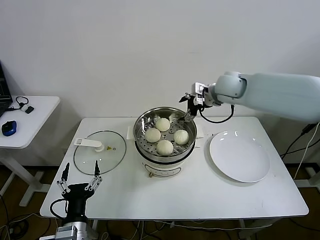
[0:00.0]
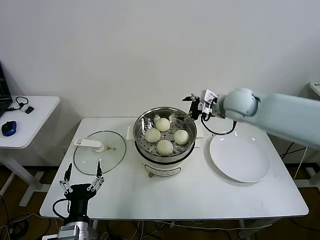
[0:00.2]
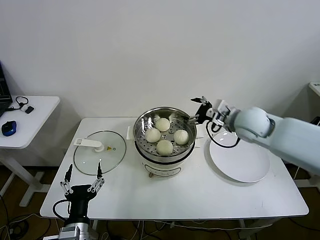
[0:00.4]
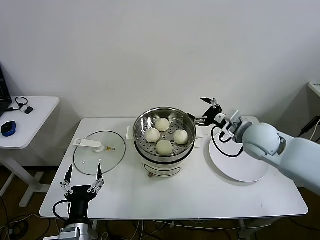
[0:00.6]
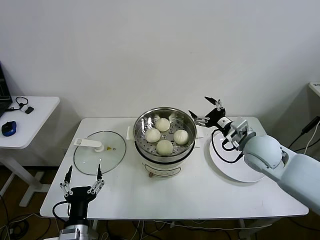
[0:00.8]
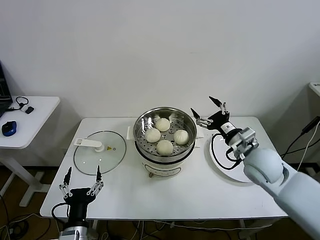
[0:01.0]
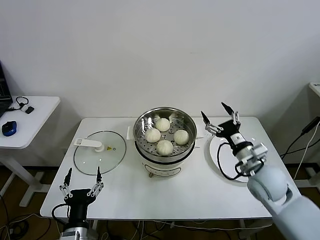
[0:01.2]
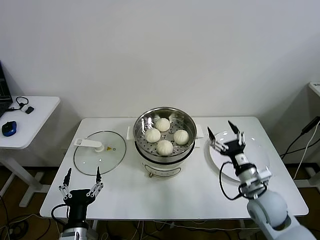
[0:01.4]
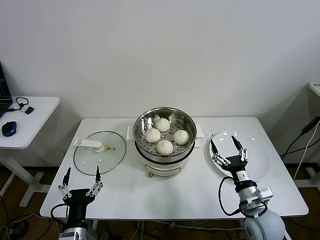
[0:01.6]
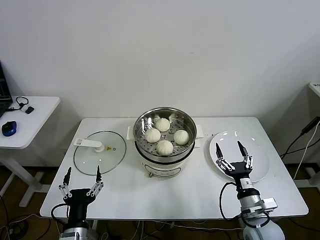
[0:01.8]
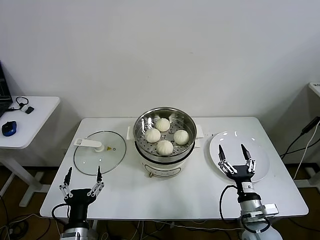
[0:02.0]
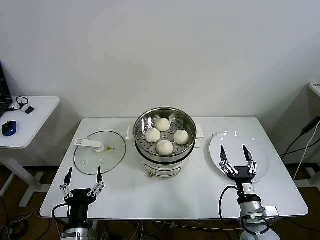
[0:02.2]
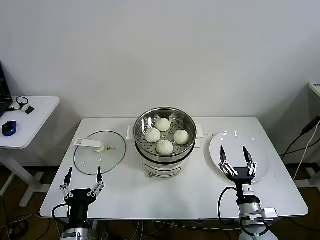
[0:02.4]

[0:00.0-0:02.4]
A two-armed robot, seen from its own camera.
0:00.0 to 0:01.2: The right gripper heads backward and downward, covering roughly 30 cm.
0:01.2 to 0:02.4: The right gripper is displaced backward and downward by about 20 cm.
